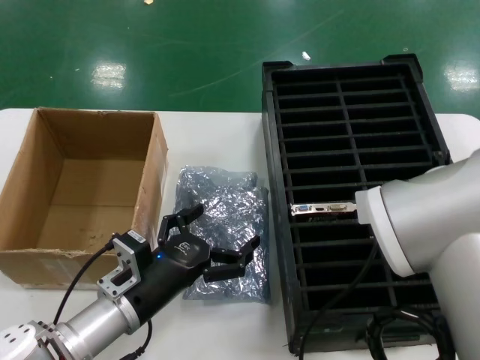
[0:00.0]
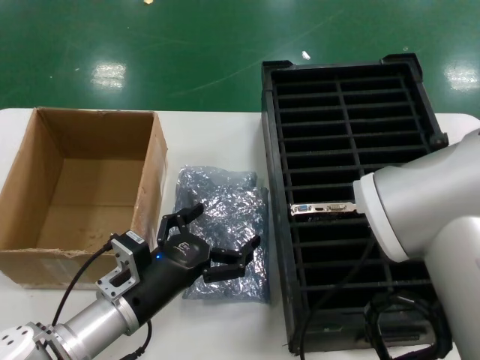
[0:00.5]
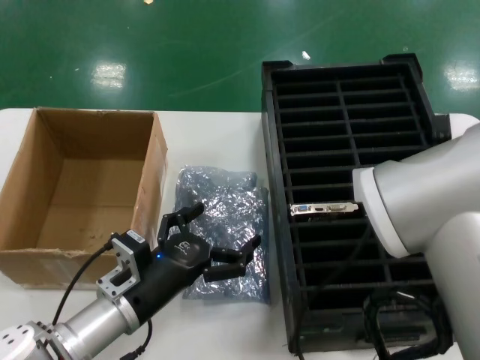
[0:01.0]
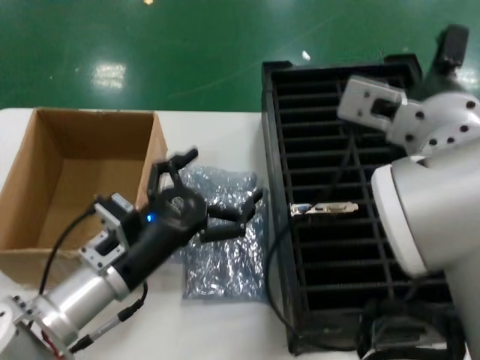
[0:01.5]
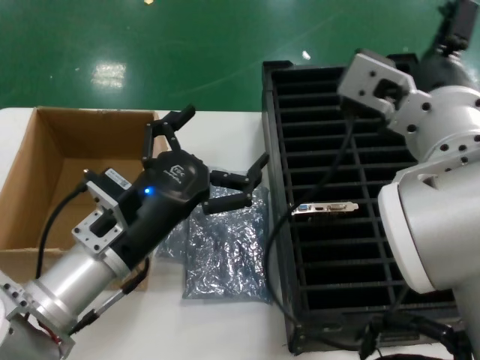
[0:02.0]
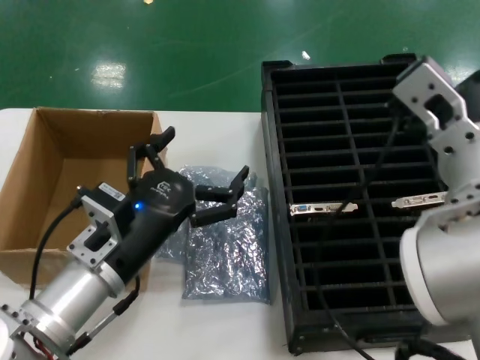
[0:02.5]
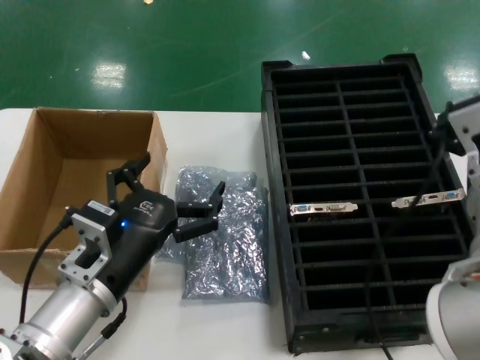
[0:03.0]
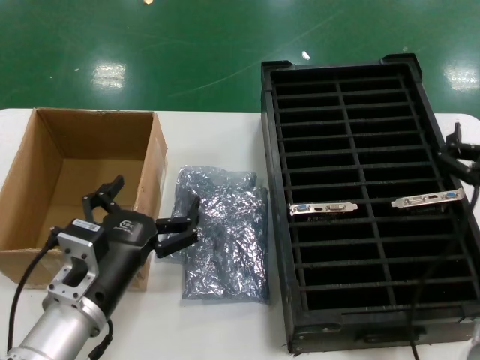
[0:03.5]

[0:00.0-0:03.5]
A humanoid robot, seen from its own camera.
Task of the whole recording: take out graphics card from box remove packaging put into black container.
0:00.0 to 0:02.0: The left hand is displaced upward by approximately 10 cm. Meanwhile the right hand is displaced upward by about 5 cm.
0:02.0 to 0:03.5: The left hand goes about 5 cm downward; the right hand moves downward and to the right, some 20 cm.
